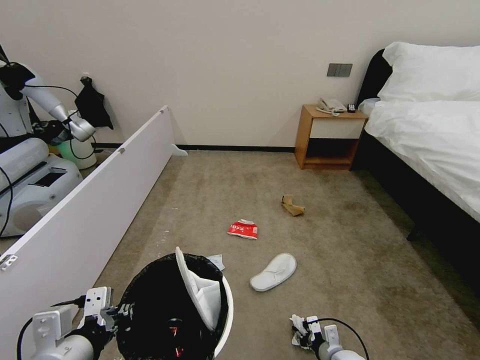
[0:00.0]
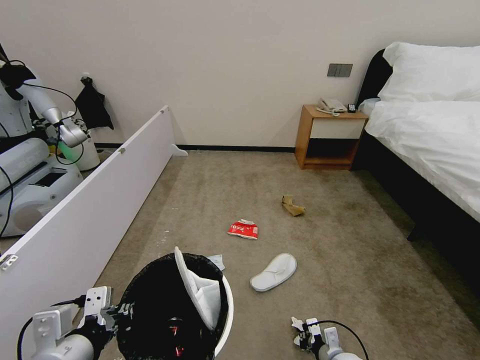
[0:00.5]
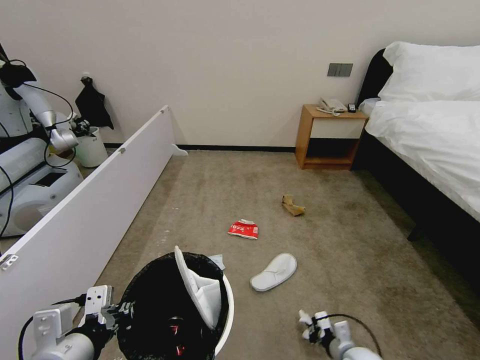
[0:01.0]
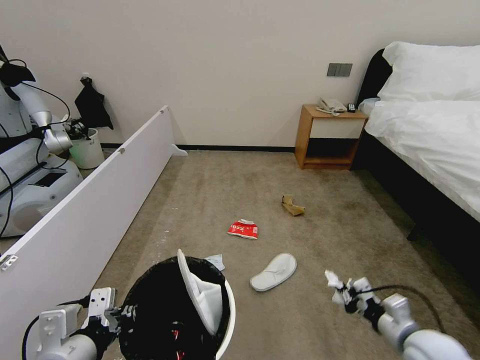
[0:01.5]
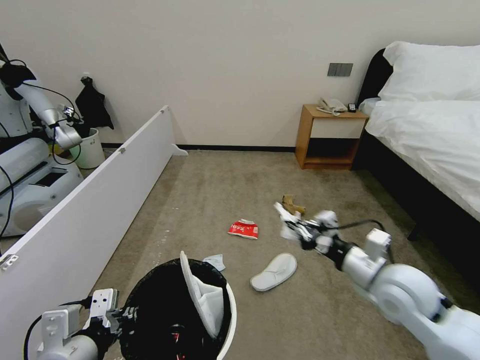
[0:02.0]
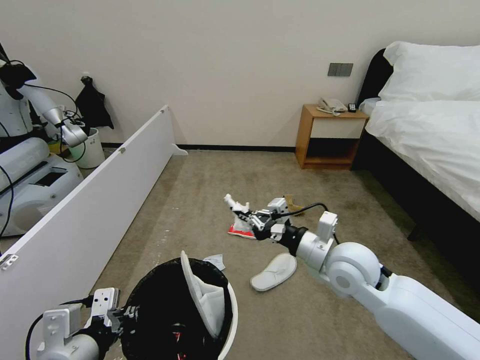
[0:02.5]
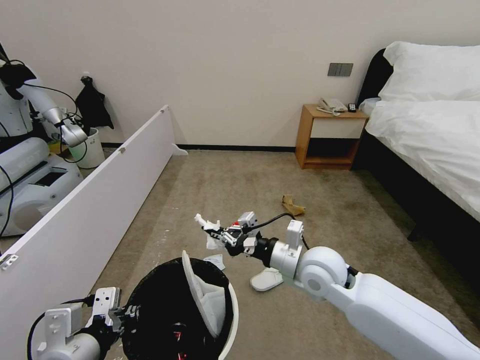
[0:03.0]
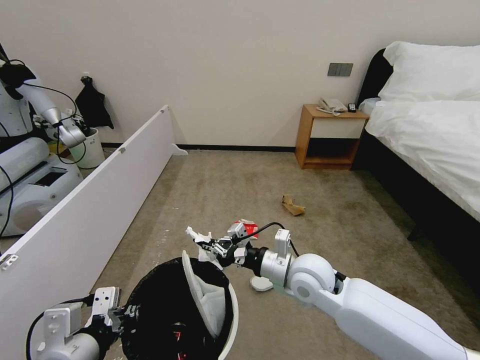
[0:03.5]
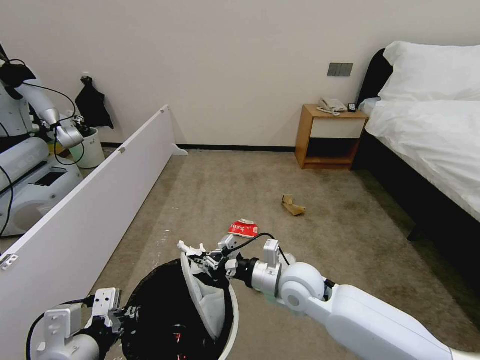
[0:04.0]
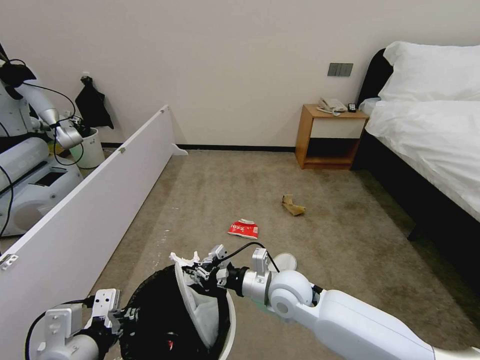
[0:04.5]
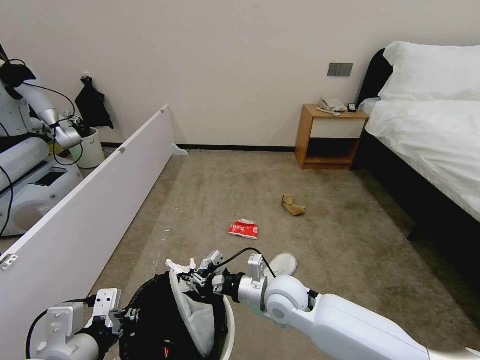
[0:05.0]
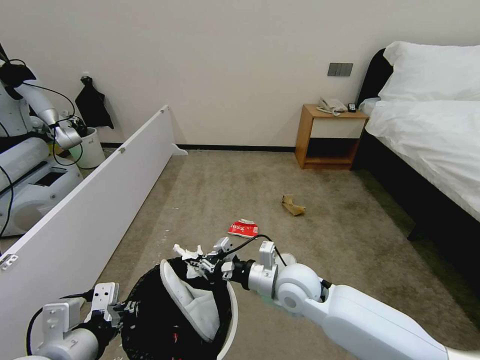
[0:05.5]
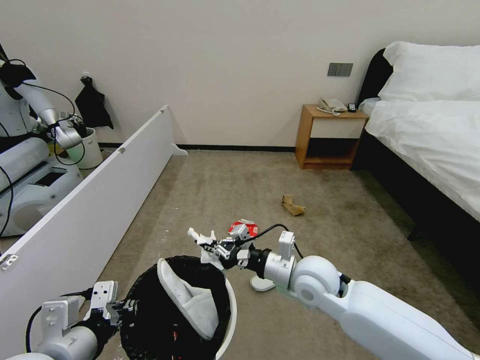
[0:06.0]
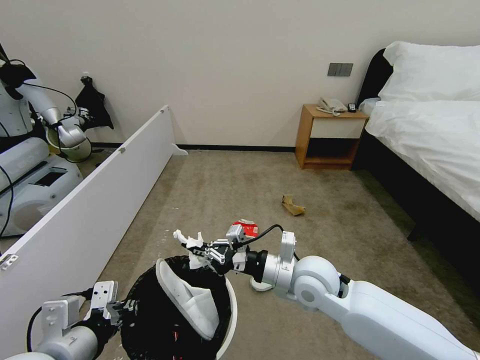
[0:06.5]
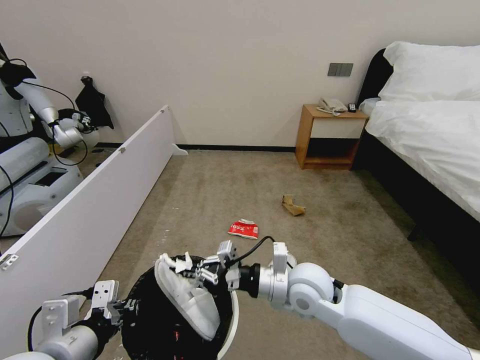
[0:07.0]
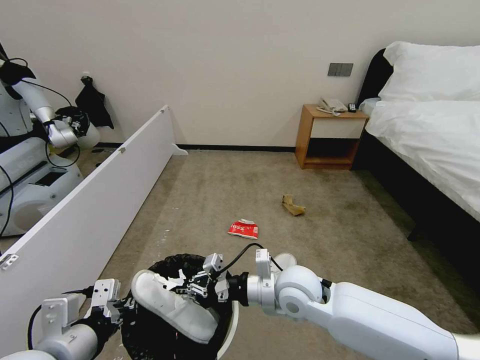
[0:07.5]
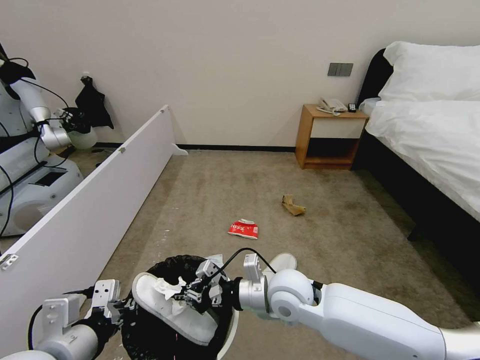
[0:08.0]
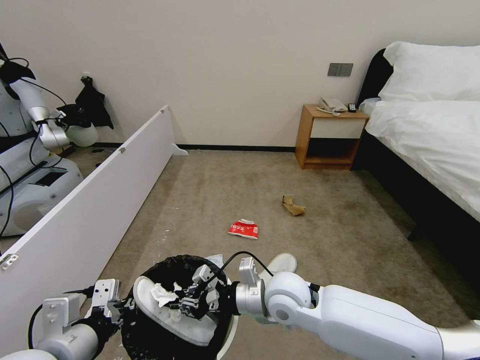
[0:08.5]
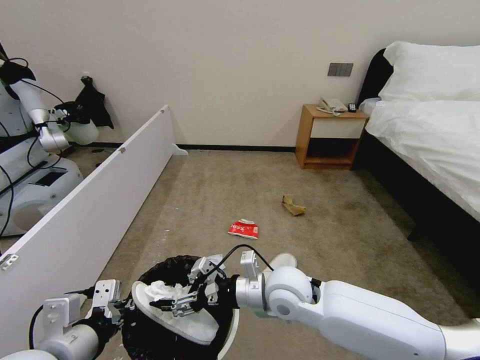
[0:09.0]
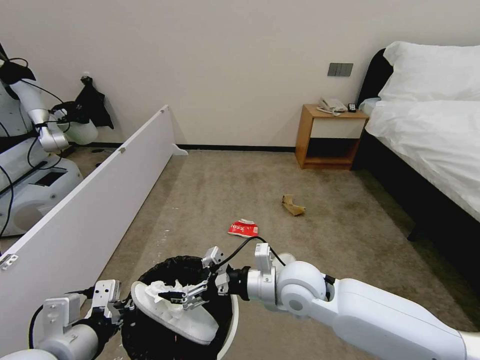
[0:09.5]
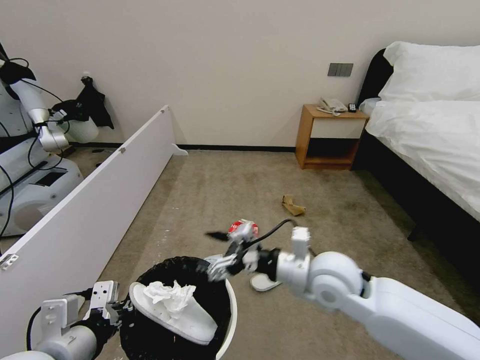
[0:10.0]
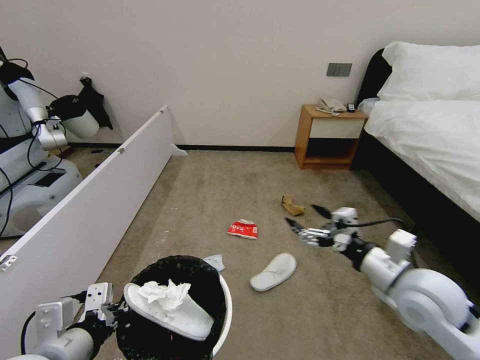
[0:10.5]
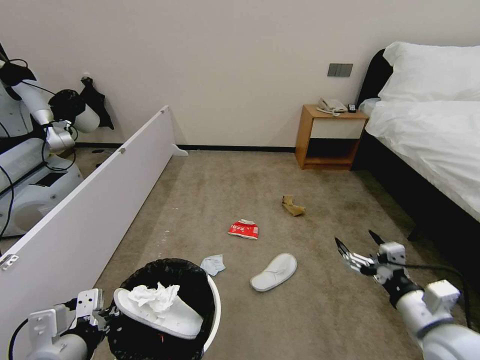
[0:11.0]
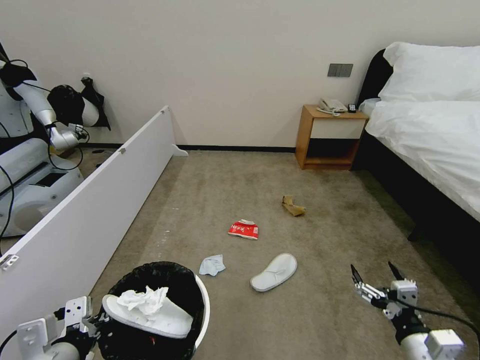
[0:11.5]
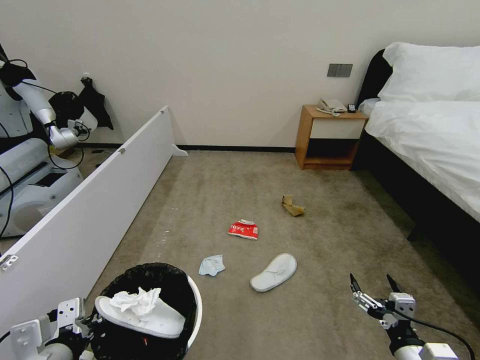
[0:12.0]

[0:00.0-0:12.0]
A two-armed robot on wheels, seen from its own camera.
Task of the whole recording: Pick up the trash bin, then pick up the garbage from the floor and place it into the trash bin.
0:00.0 to 0:02.0: The right gripper shifts roughly 35 cm upward, and closes up.
0:02.0 to 0:04.0: The right gripper goes about 15 cm to the left and downward.
0:04.0 to 0:06.0: There are only small adjustments of the grippers.
0:06.0 to 0:08.0: The right gripper is displaced to the left by approximately 5 cm.
0:08.0 to 0:10.0: The right gripper shifts some 10 cm to the right and upward, and opens its fingers.
0:10.0 to 0:12.0: The right gripper travels backward, to the right and downward by approximately 30 cm. The left gripper shifts by about 5 cm.

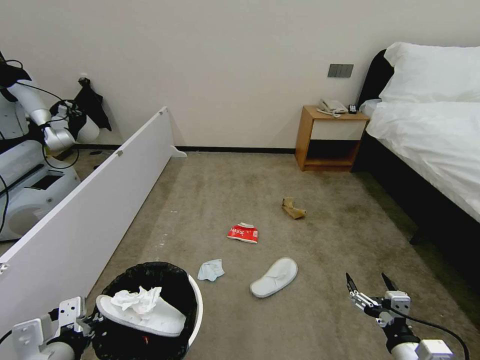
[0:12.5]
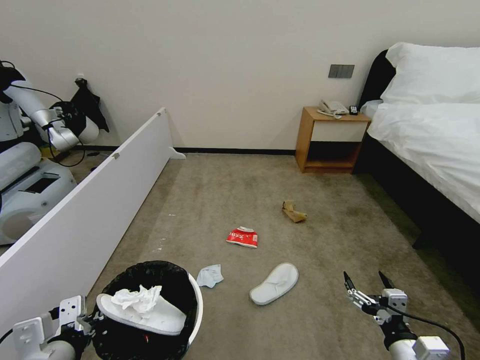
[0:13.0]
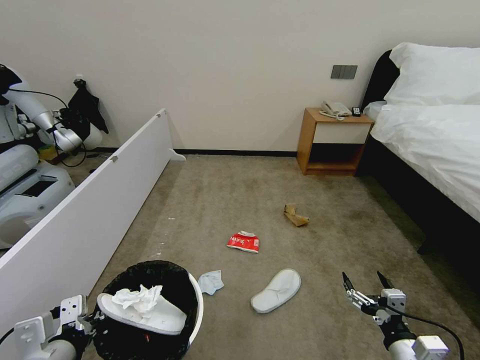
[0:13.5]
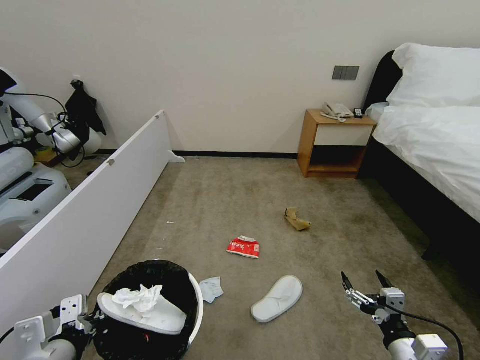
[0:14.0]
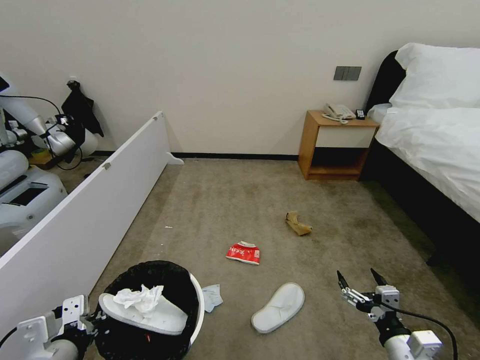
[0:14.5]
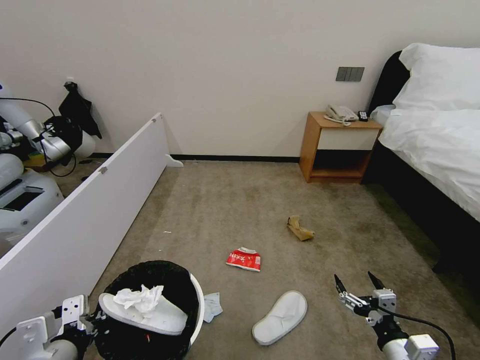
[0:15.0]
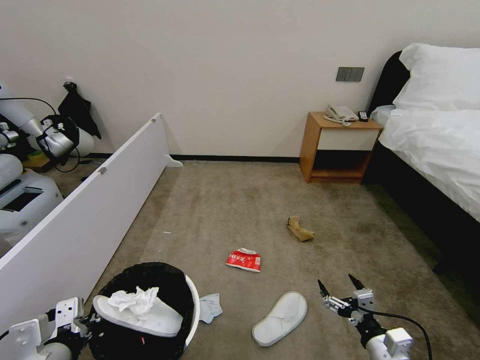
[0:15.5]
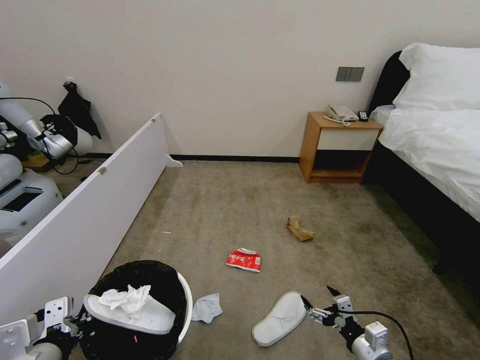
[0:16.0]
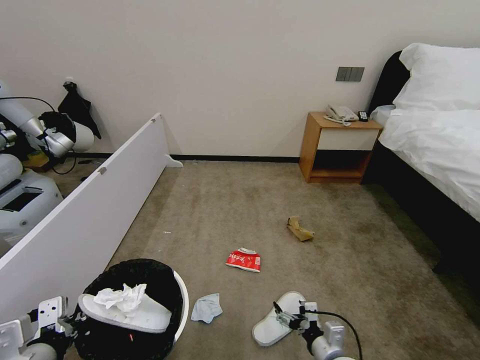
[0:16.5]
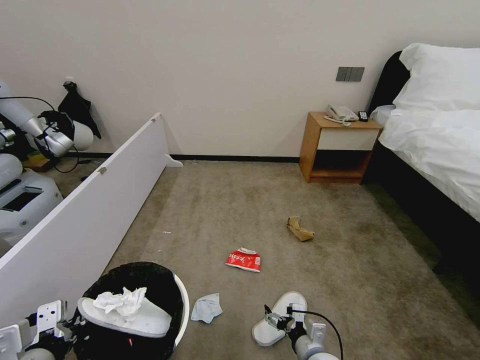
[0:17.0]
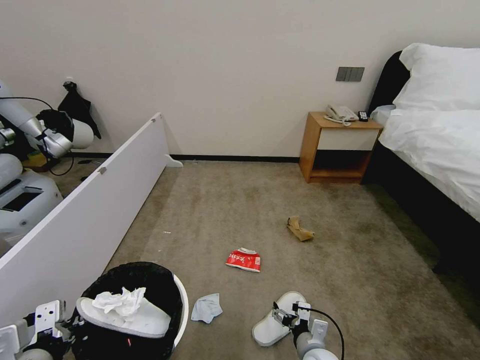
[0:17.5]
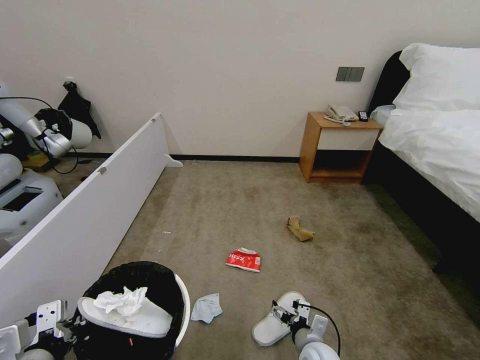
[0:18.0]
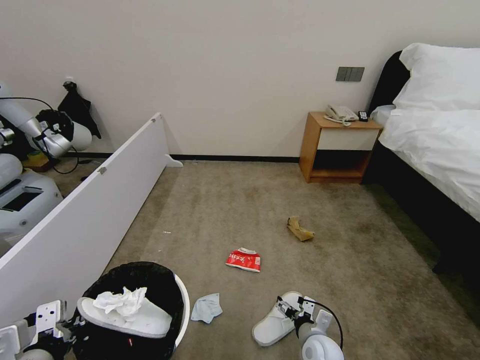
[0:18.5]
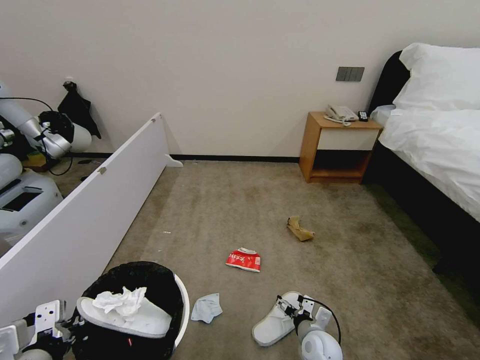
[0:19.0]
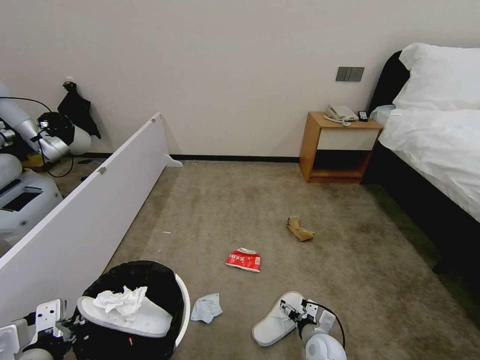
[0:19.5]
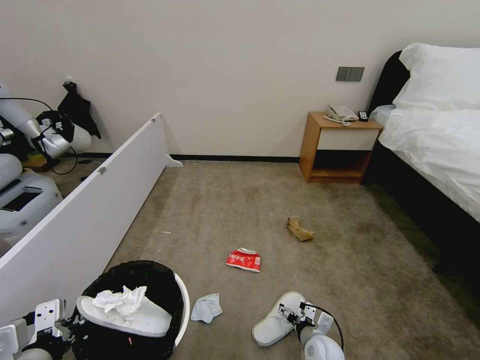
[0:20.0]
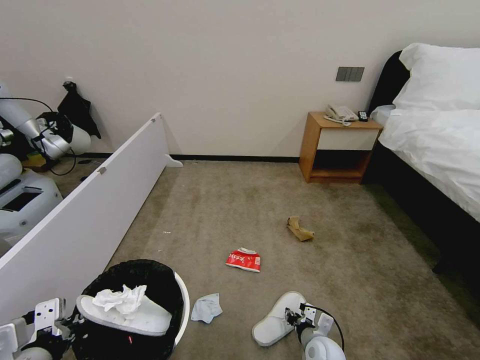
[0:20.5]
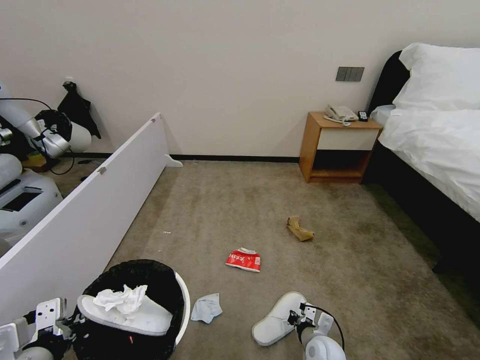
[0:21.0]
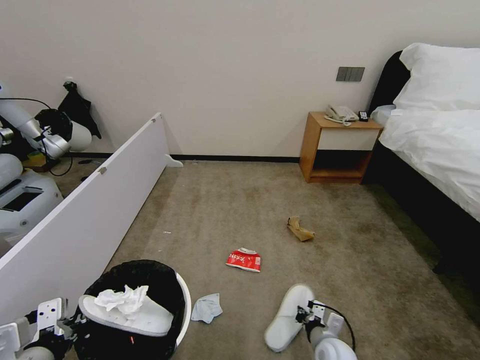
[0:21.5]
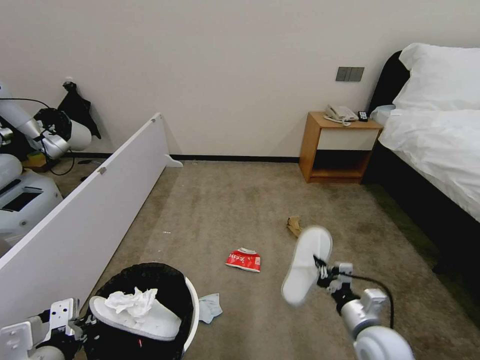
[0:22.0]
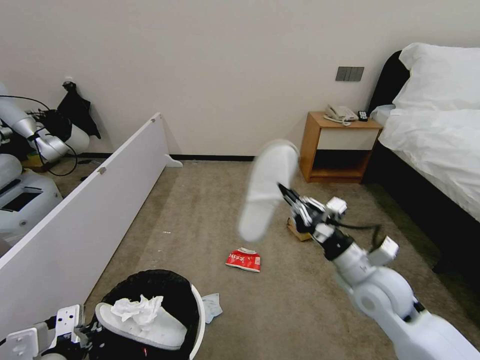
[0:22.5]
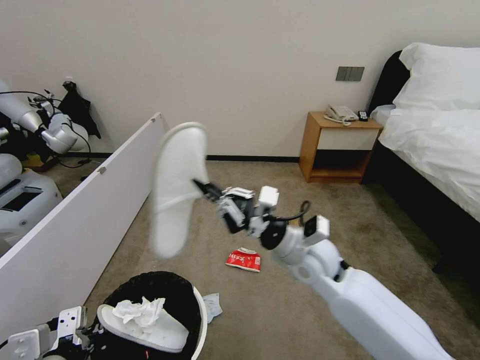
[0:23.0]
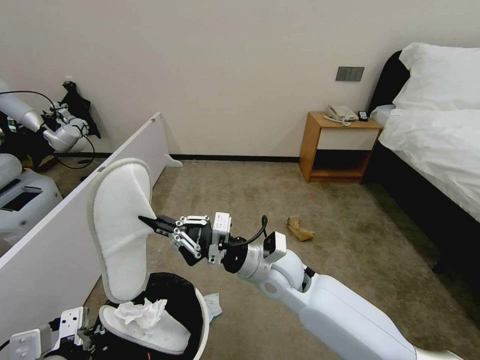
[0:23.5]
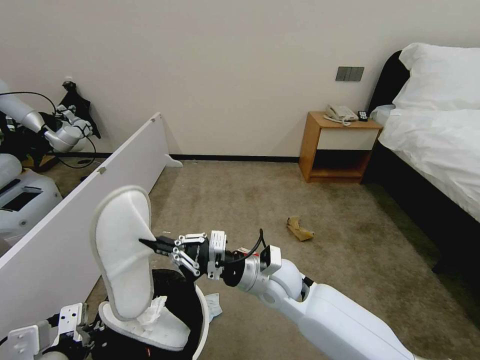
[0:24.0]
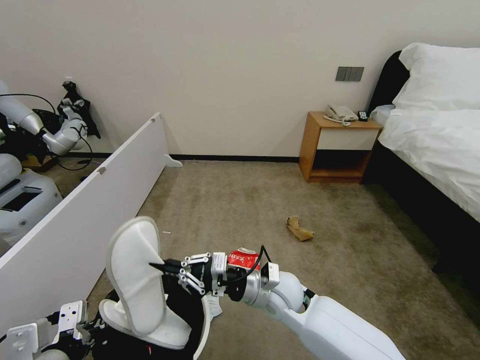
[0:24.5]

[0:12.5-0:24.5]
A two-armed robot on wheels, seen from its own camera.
Task of the whole recording: Pick up the trash bin, then pick up the garbage from the floor and place it into the trash bin.
0:12.5 to 0:14.5: The grippers move only a little.
0:14.5 to 0:16.5: The right gripper shifts about 15 cm to the left and downward.
0:16.5 to 0:18.5: The right gripper travels forward by roughly 5 cm.
0:18.5 to 0:20.5: The right gripper closes its fingers.
0:20.5 to 0:22.5: The right gripper moves upward, some 30 cm, and closes its fingers.
0:22.5 to 0:24.5: The right gripper moves to the left, about 20 cm.

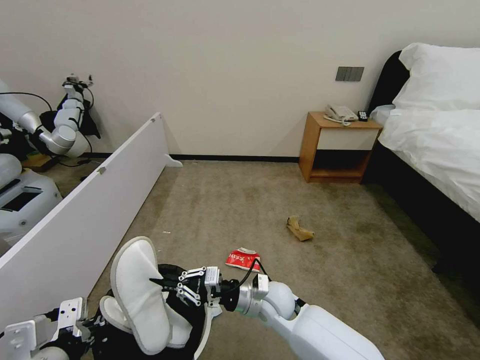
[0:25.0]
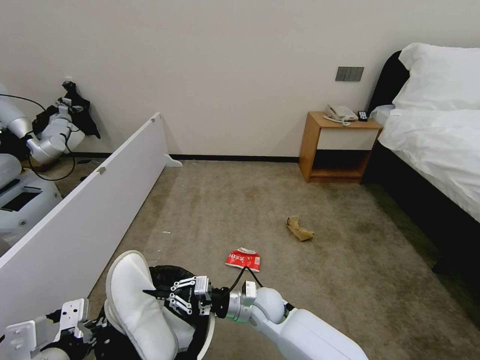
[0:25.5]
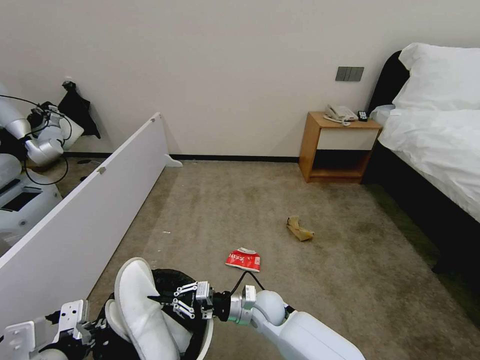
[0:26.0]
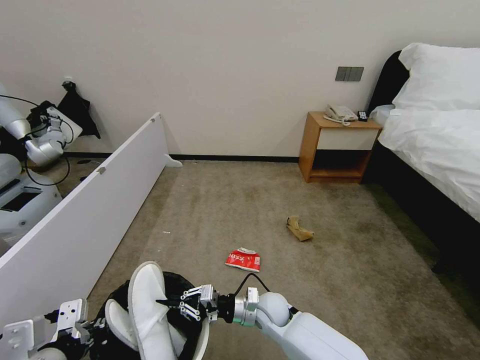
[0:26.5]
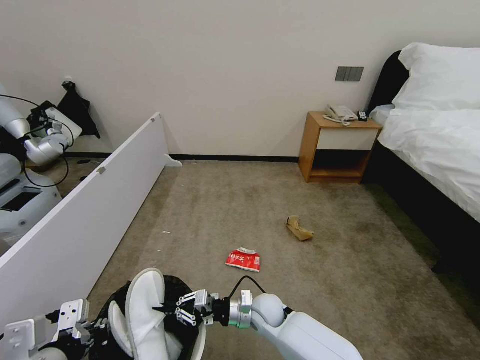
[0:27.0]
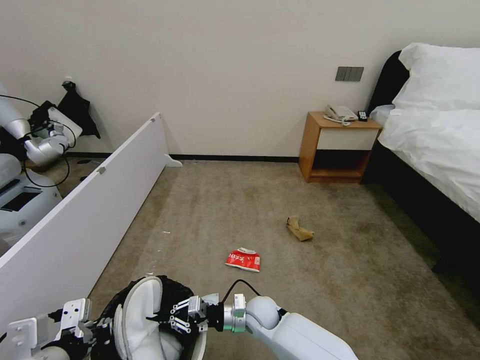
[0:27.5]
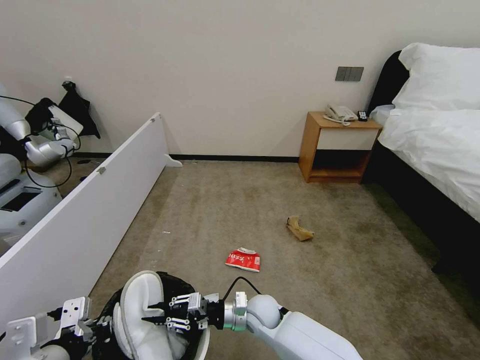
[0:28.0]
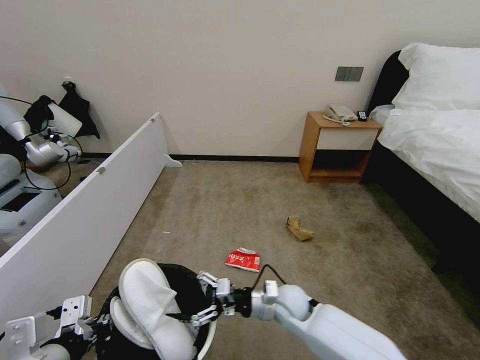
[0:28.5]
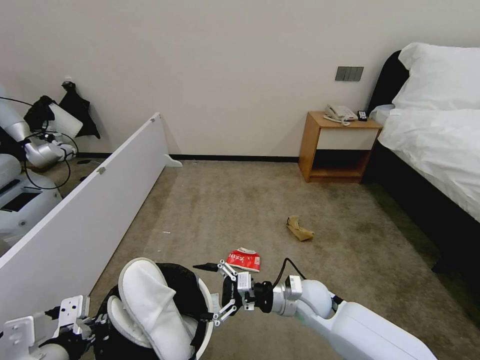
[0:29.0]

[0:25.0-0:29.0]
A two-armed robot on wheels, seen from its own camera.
Task of the whole recording: Pick up the trash bin, then pick up the garbage from the floor and place it into the trash bin.
0:25.0 to 0:27.0: The right gripper travels downward by approximately 10 cm.
0:27.0 to 0:29.0: The right gripper travels to the right and upward by some 15 cm, and opens up.
